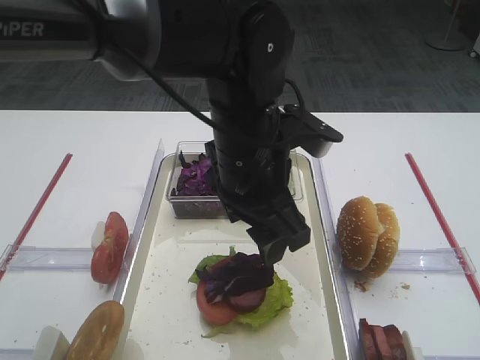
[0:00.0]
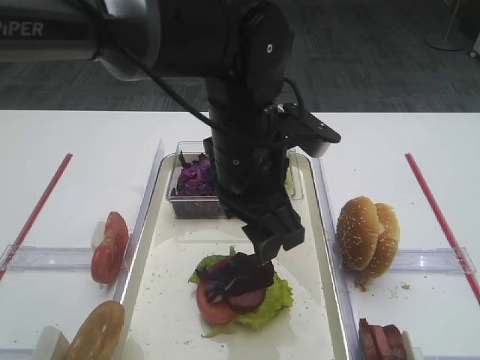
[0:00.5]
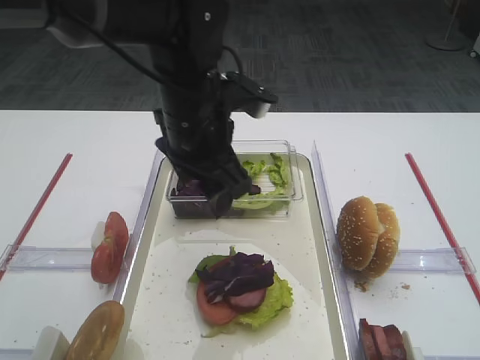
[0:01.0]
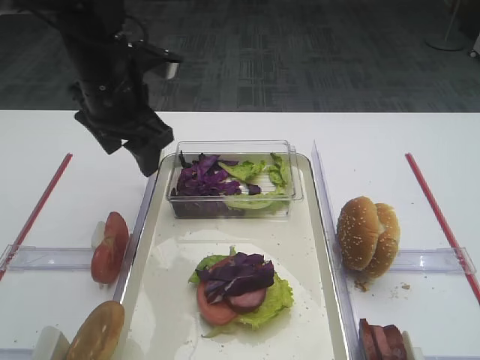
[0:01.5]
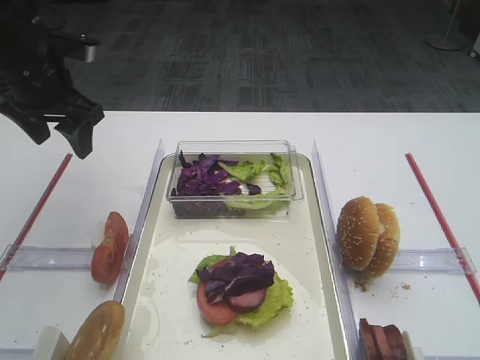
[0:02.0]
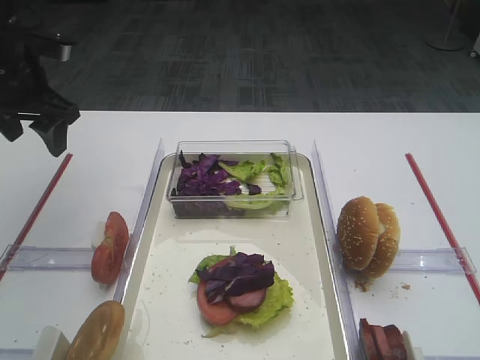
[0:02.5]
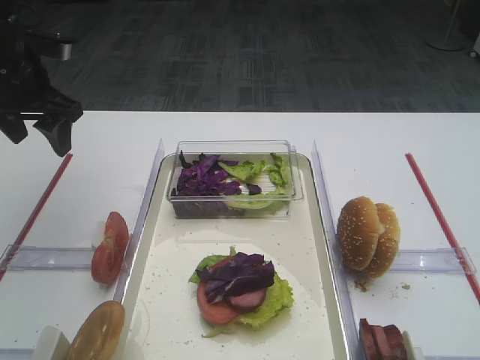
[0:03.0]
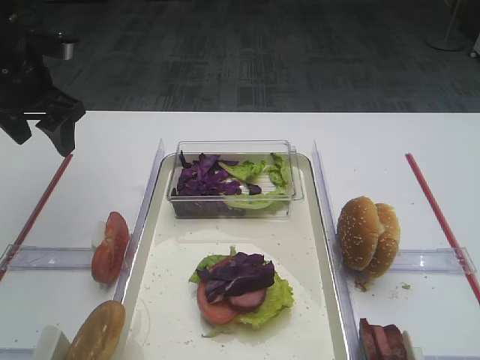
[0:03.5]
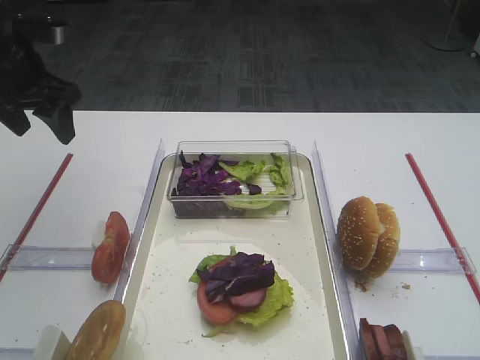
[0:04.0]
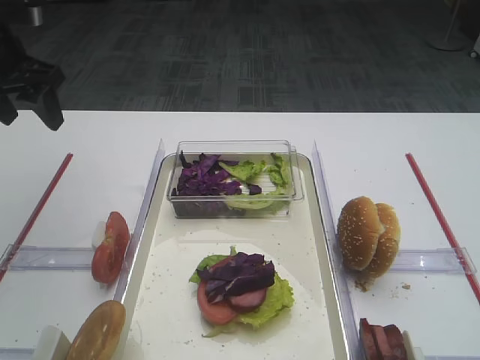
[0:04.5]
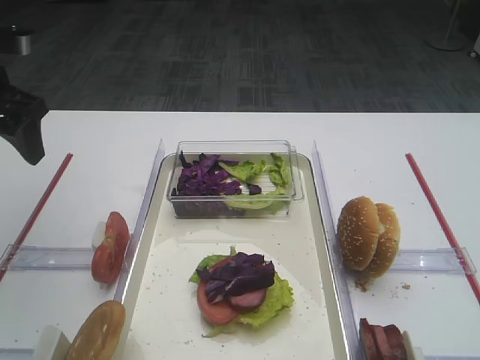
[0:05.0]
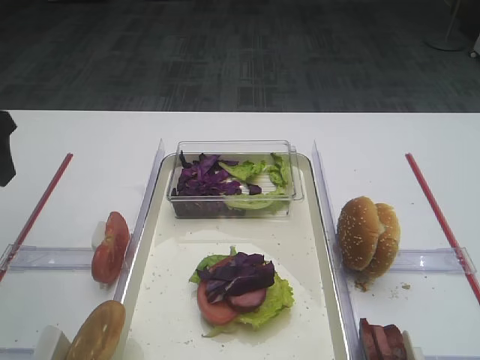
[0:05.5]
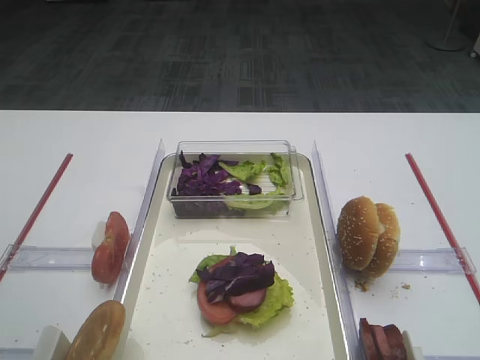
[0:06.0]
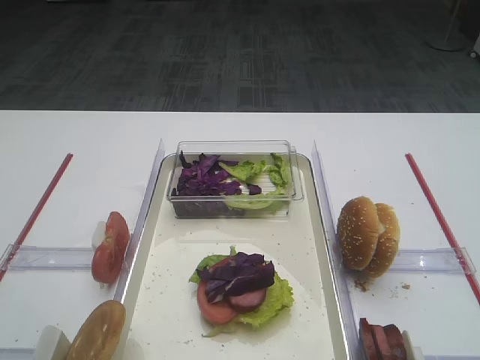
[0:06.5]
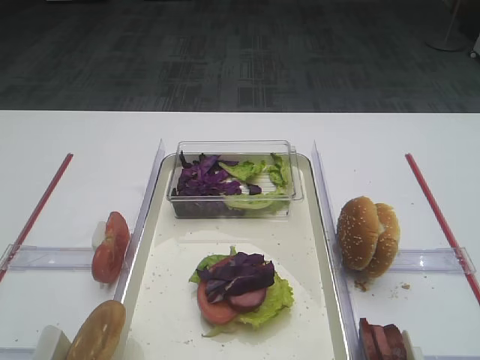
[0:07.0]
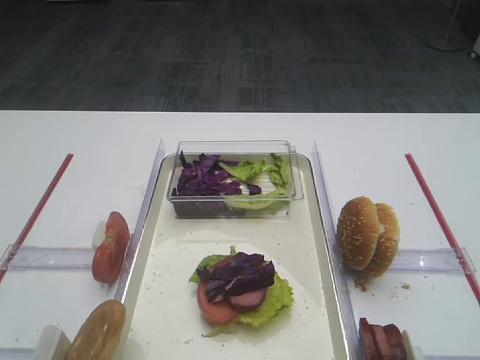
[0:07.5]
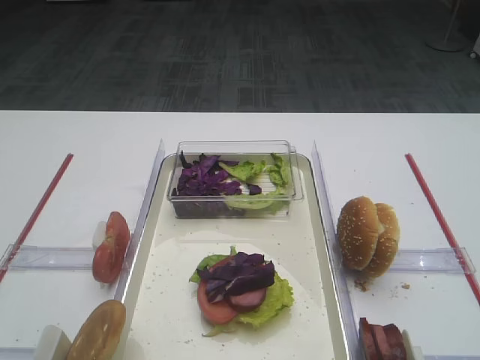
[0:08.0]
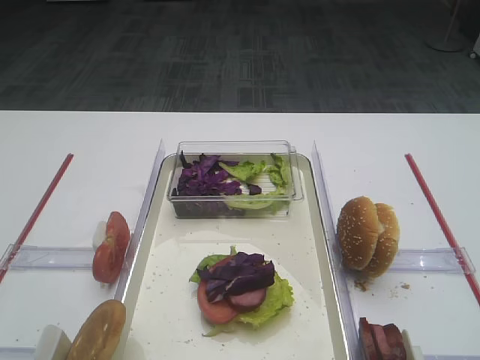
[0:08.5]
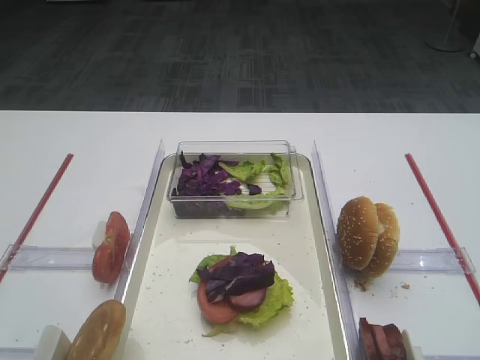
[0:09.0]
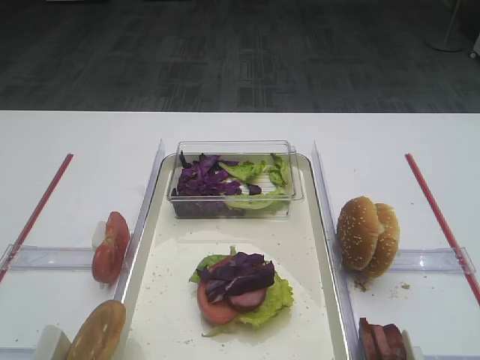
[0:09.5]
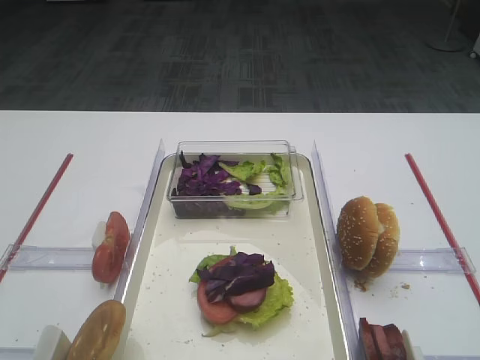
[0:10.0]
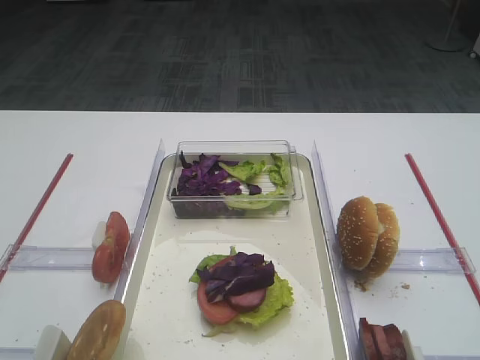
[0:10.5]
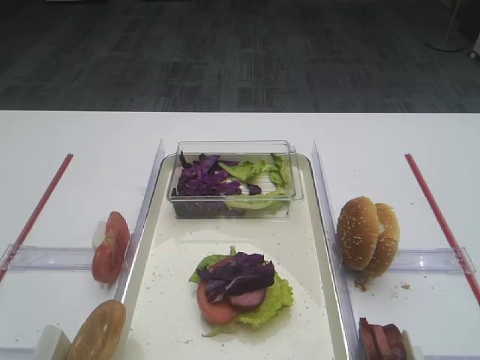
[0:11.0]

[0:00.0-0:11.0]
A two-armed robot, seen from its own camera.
0:00.0 to 0:02.0: The left gripper moves to the left and forward, roughly 30 cm.
0:02.0 to 0:03.5: The grippers stay close to where they were, moving slightly.
0:03.5 to 0:05.5: The left gripper is displaced backward by some 10 cm.
0:05.5 to 0:07.5: The left gripper moves backward, roughly 30 cm.
0:07.5 to 0:11.0: Both grippers stay about where they are.

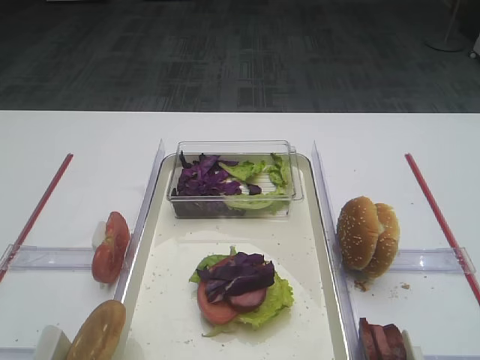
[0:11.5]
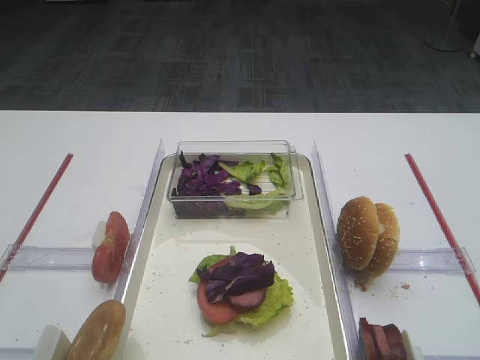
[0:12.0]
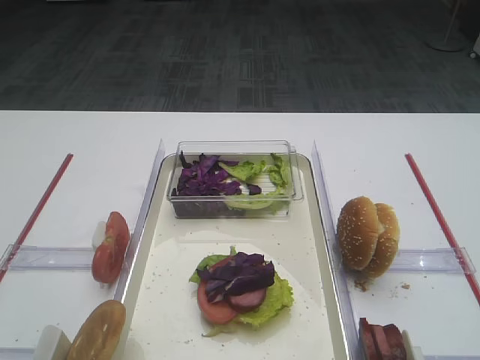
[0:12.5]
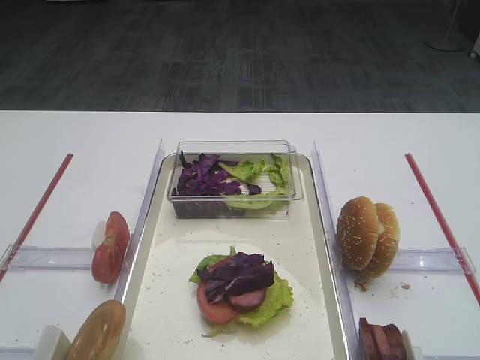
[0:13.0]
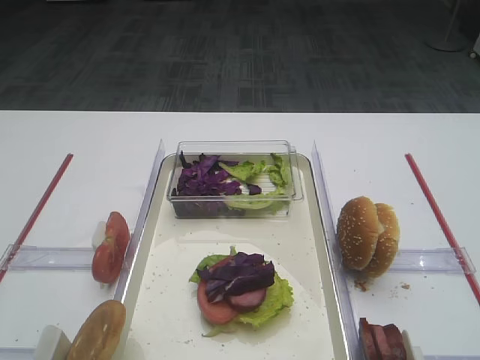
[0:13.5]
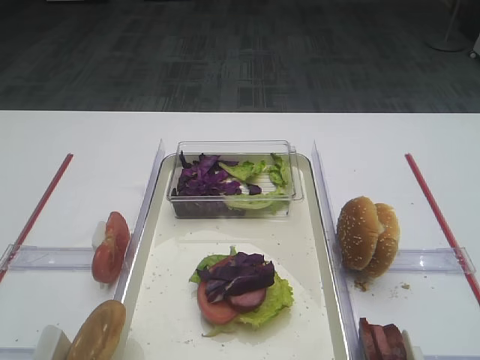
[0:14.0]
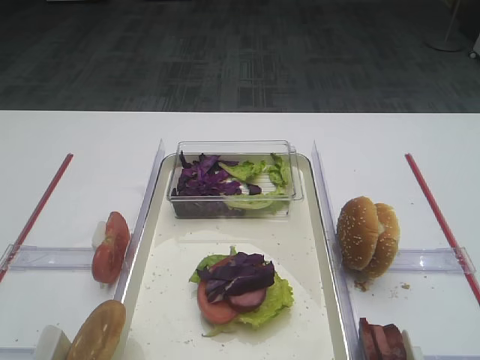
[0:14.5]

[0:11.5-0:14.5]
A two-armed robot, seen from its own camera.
0:11.5 to 0:14.5: Both grippers stay about where they are.

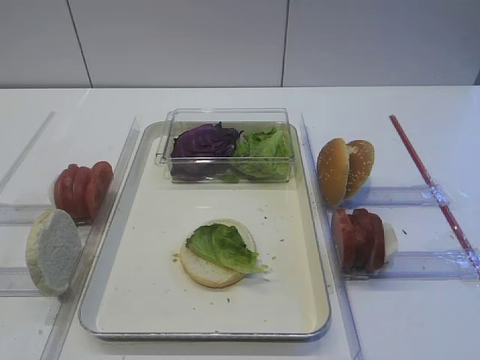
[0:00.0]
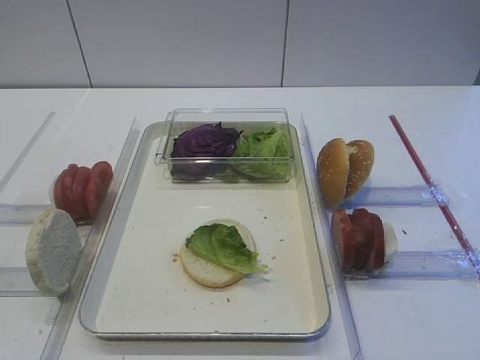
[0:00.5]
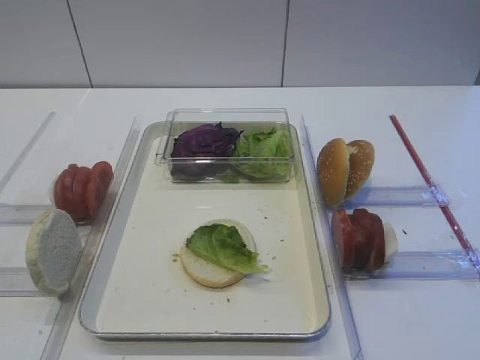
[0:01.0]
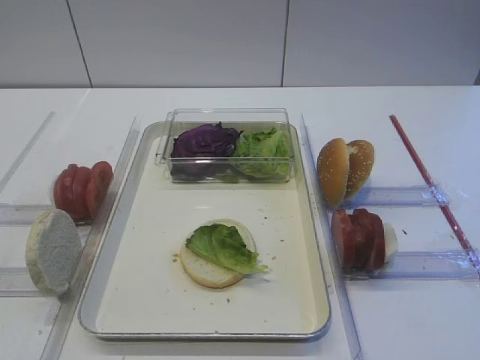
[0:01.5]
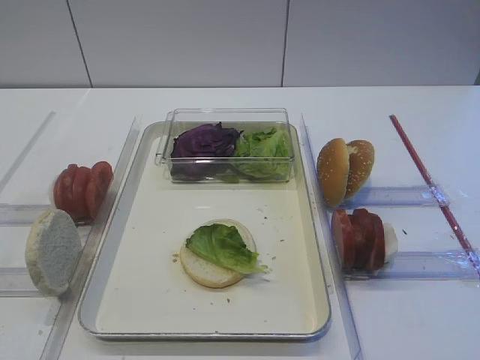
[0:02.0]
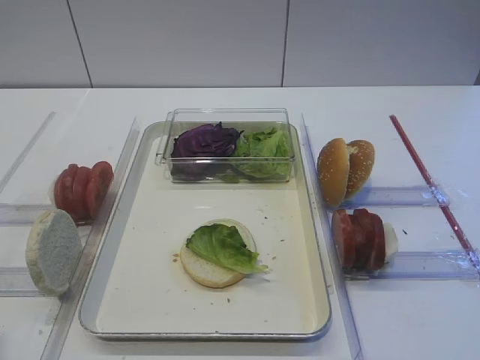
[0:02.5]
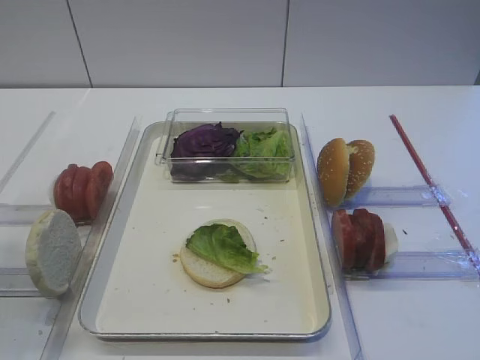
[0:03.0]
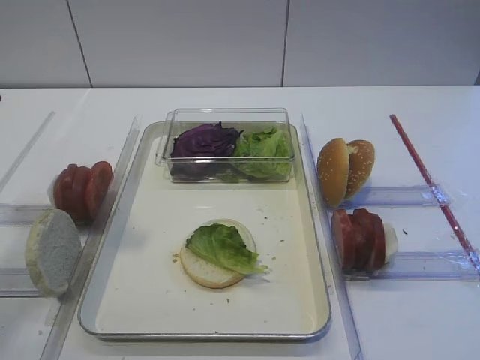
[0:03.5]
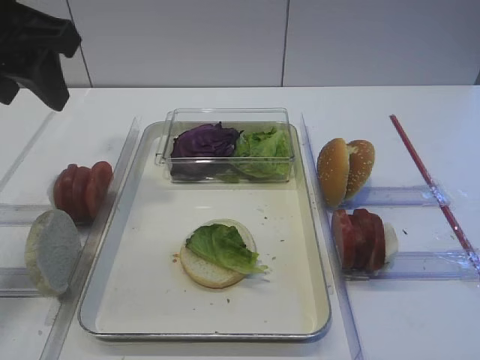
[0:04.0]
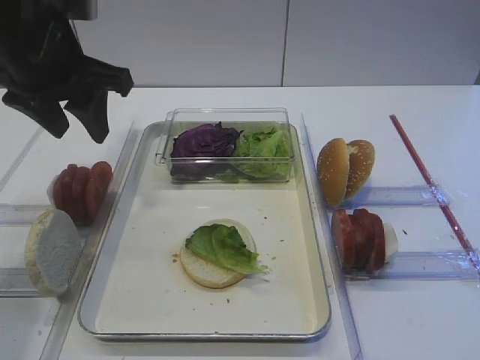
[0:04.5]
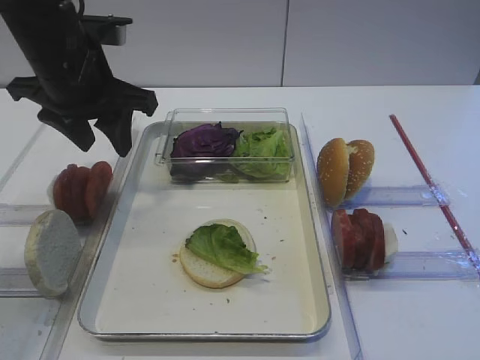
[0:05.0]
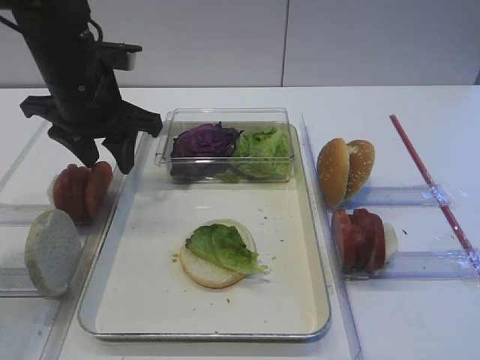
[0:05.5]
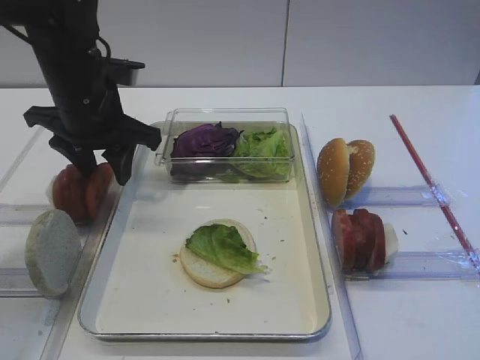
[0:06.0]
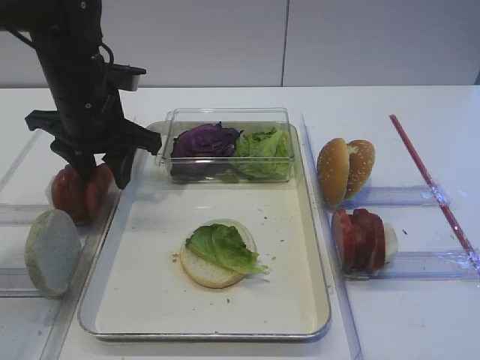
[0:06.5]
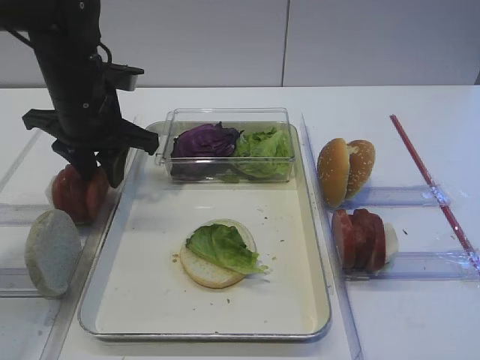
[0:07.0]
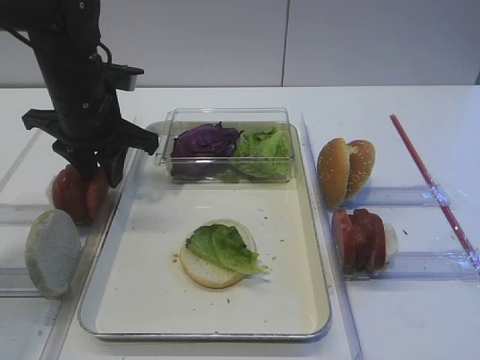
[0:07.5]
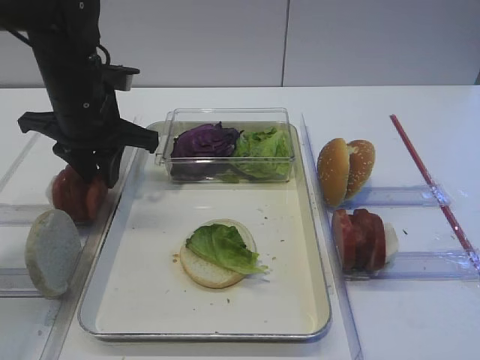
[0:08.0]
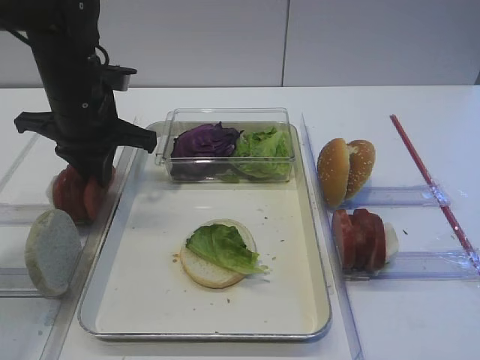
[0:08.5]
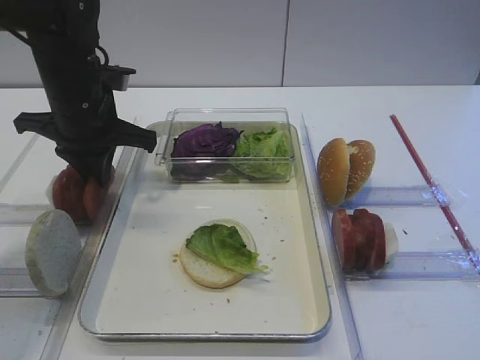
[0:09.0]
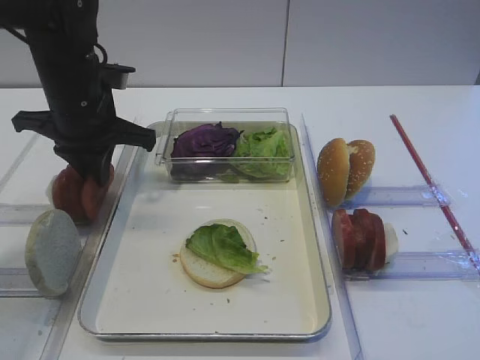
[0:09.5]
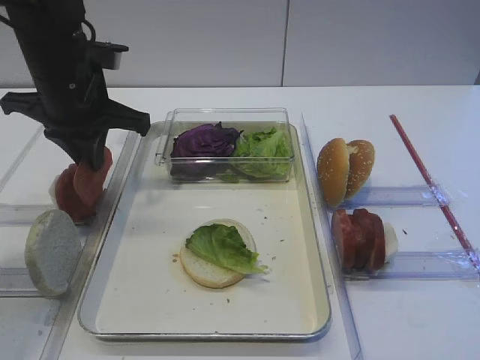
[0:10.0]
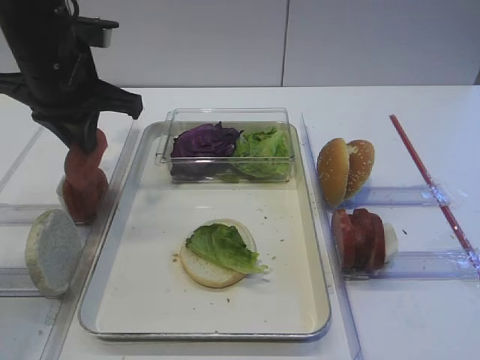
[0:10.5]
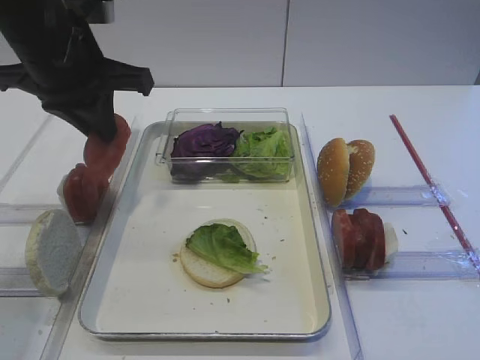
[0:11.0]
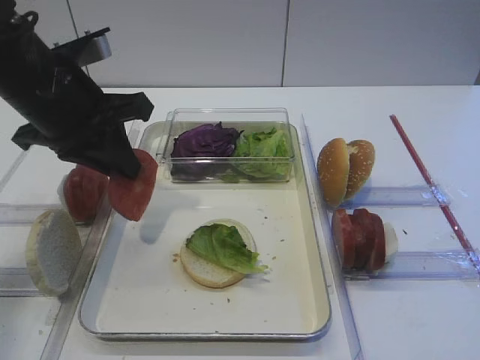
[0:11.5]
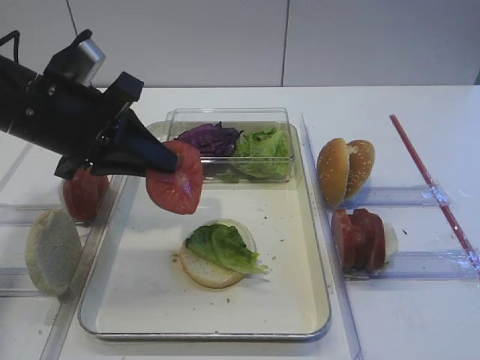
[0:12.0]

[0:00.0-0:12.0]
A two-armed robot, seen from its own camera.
Step, 0:00.0 to 0:10.0: Pick up the tomato slice with the left gripper.
0:02.0 to 0:04.0: The left gripper is displaced forward and upward by some 30 cm.
0:04.0 to 0:06.0: The left gripper shifts some 15 cm downward and forward.
0:06.0 to 0:08.0: The left gripper closes.
0:08.0 to 0:10.0: The grippers stay close to where they were, moving slightly.
0:10.0 to 0:12.0: The left gripper travels backward by some 10 cm.
